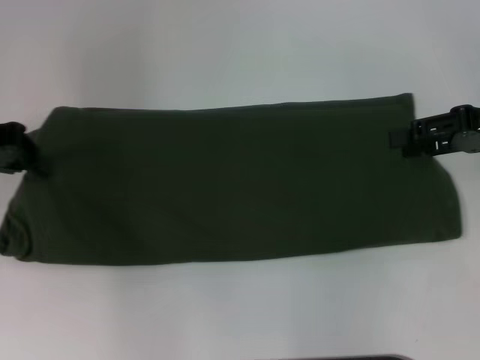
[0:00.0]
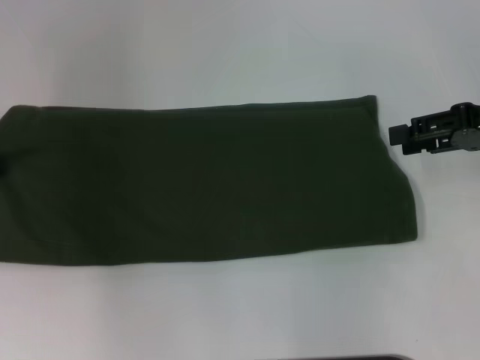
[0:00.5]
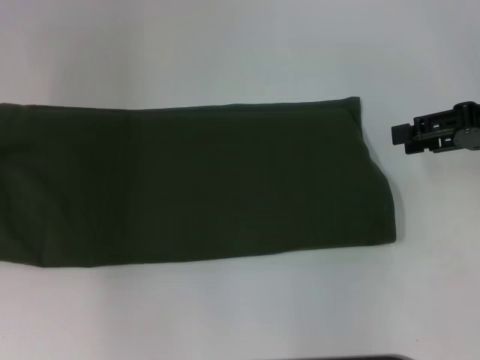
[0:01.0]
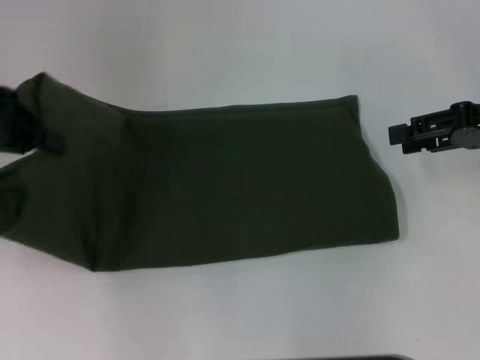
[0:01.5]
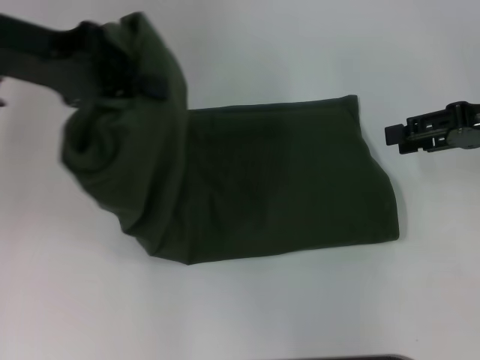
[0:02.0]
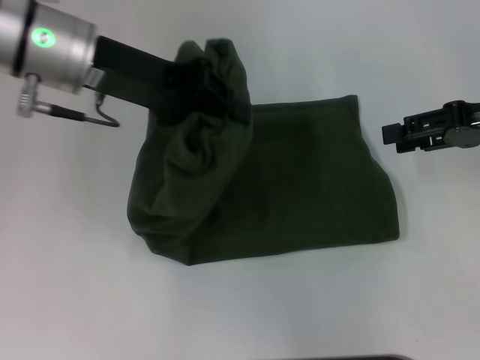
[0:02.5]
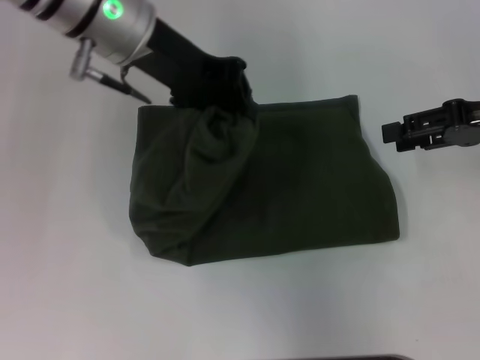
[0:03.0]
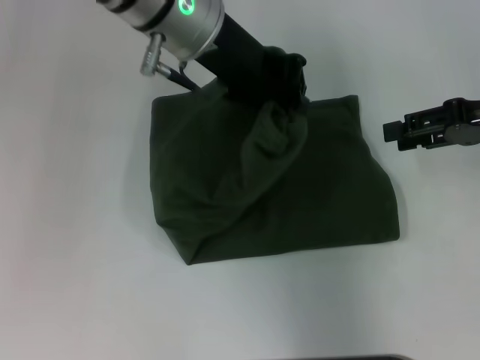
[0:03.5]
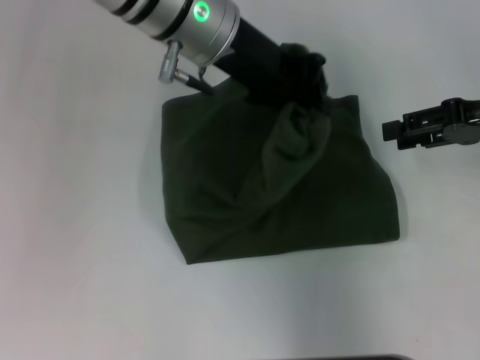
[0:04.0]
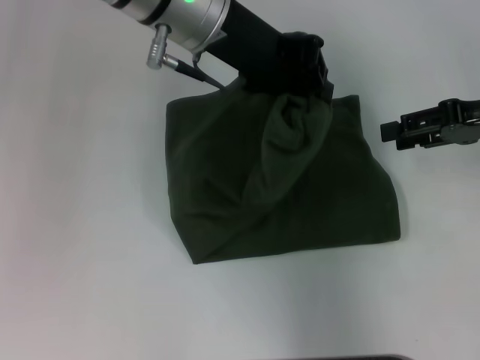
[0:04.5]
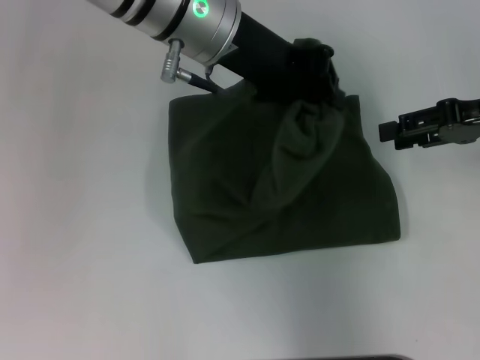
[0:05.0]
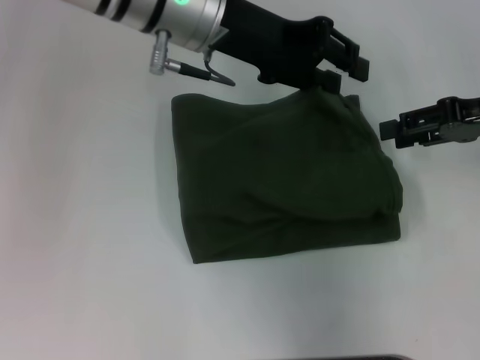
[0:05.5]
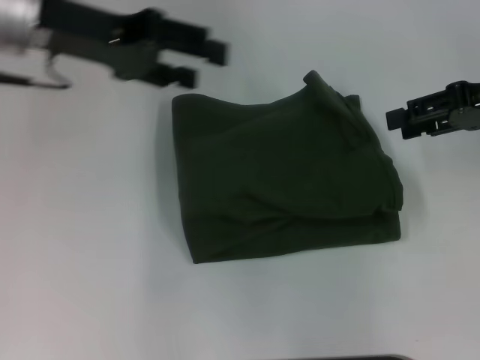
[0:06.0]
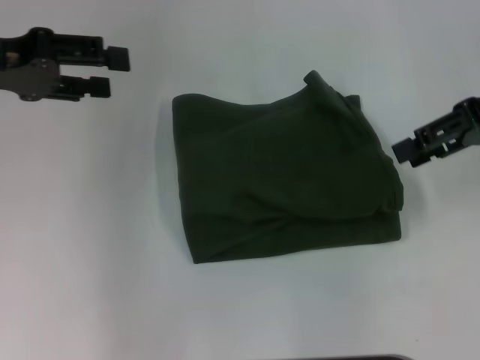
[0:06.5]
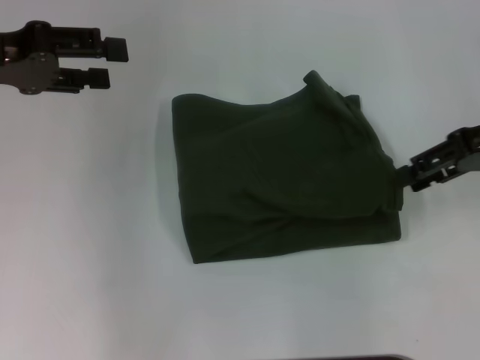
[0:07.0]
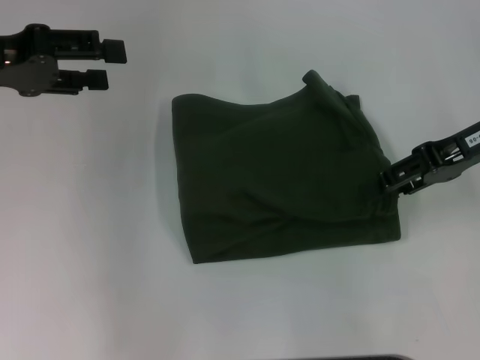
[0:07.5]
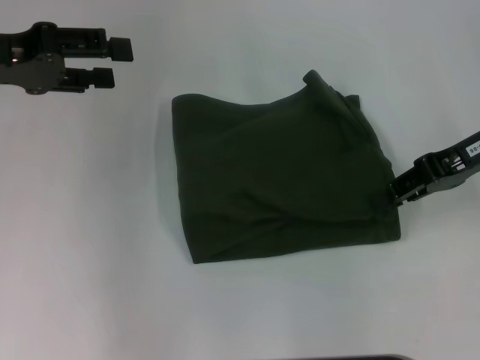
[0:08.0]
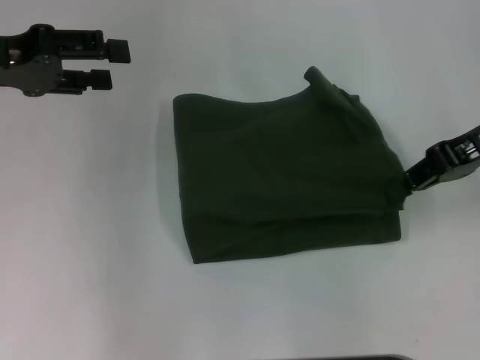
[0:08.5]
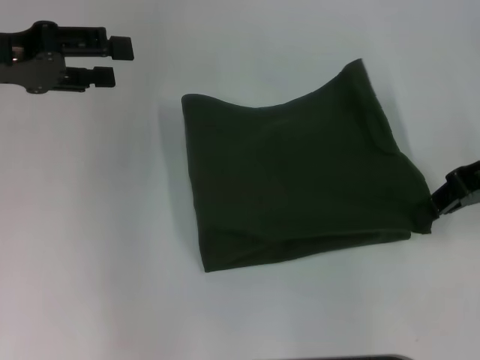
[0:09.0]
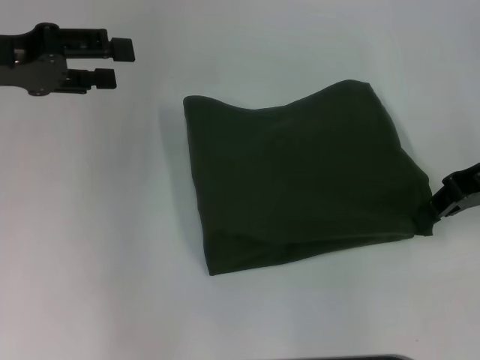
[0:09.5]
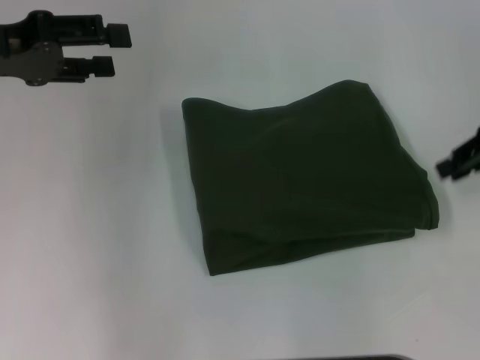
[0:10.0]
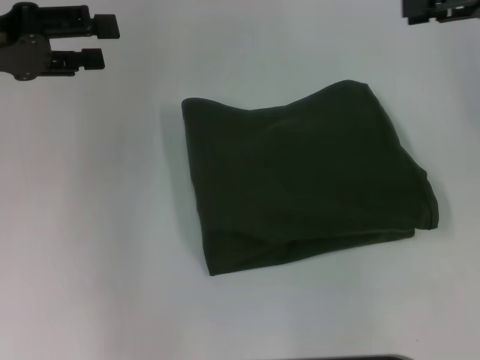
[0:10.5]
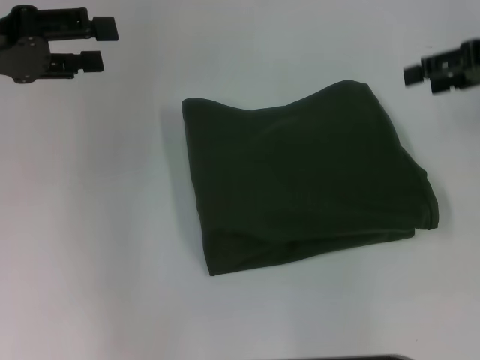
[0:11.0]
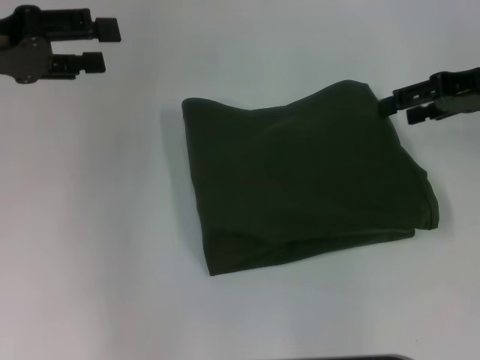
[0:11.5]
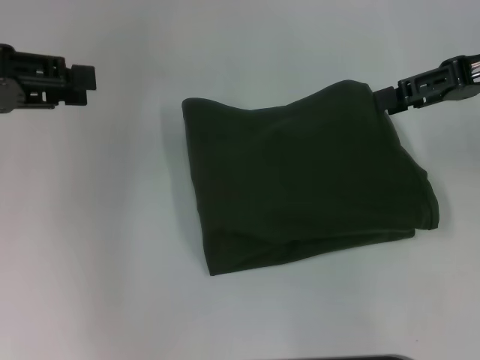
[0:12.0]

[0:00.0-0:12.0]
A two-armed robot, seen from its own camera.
Step, 0:00.0 to 0:05.5: Fold the clothes with your left hand.
0:00.0 to 0:02.0: The left gripper heads to the right and upward, covering some 10 cm.
0:02.0 to 0:04.0: The left gripper shifts some 20 cm to the right.
0:04.0 to 0:06.0: The left gripper travels to the left by some 15 cm, and opens its fingers.
0:06.0 to 0:08.0: The left gripper travels to the left by about 10 cm.
0:08.0 to 0:10.0: The right gripper is displaced to the right by roughly 5 cm.
0:10.0 to 0:12.0: The right gripper opens its fingers.

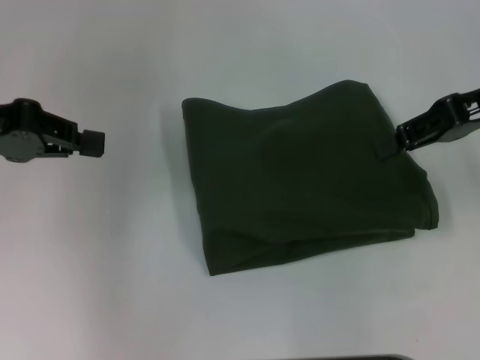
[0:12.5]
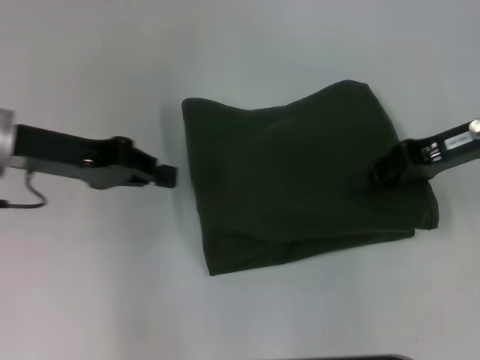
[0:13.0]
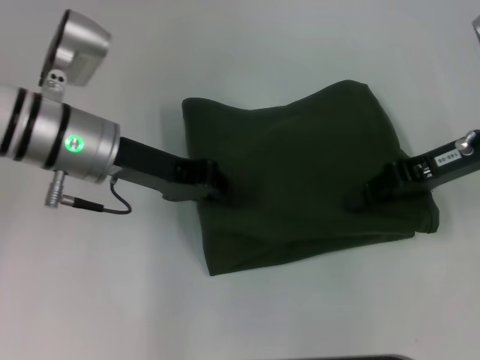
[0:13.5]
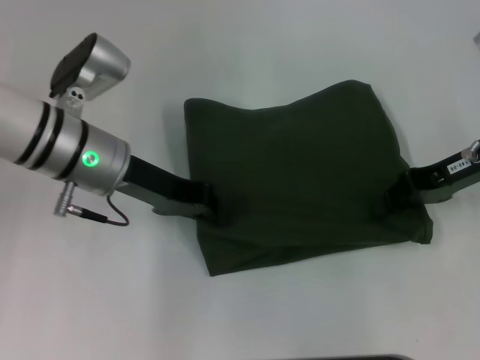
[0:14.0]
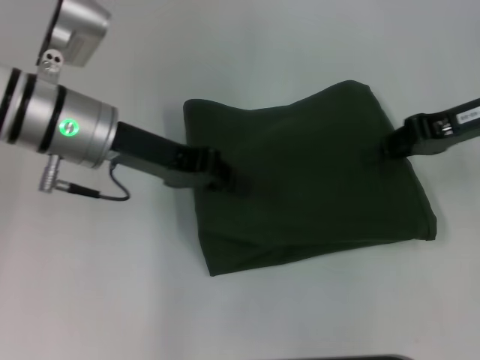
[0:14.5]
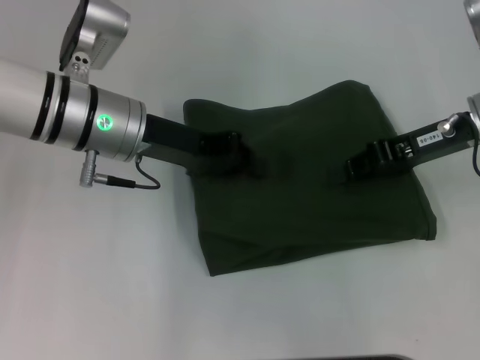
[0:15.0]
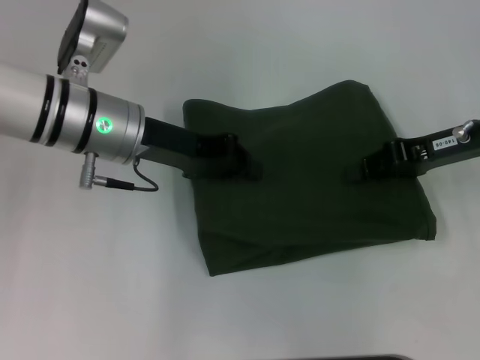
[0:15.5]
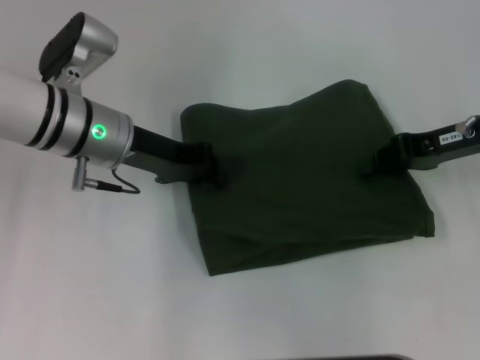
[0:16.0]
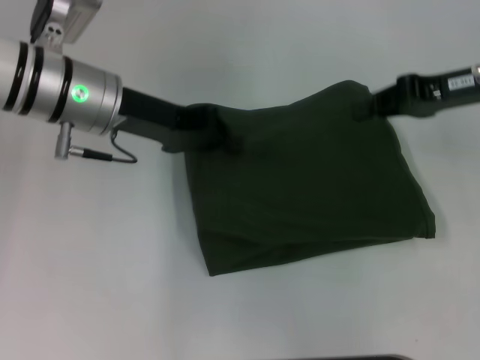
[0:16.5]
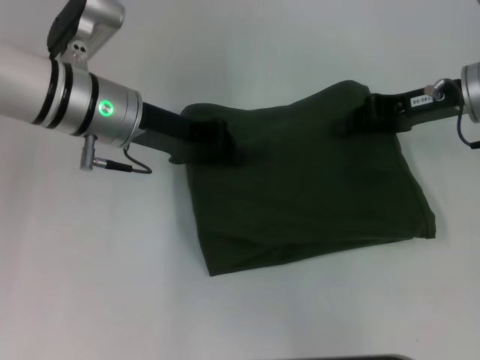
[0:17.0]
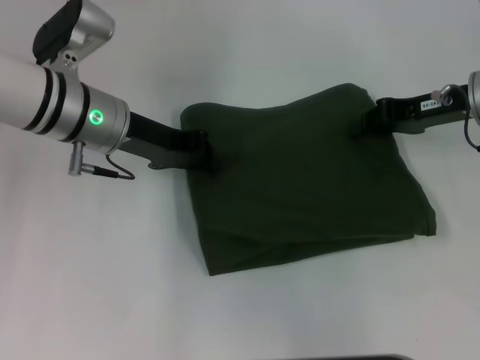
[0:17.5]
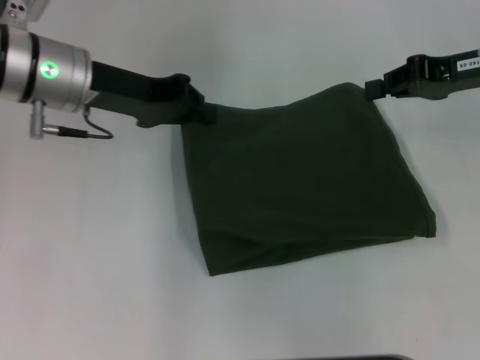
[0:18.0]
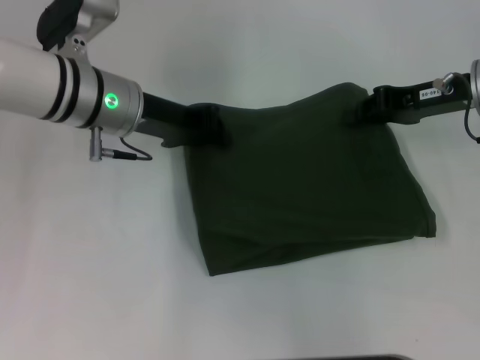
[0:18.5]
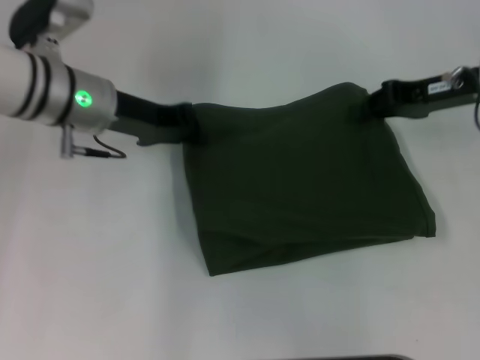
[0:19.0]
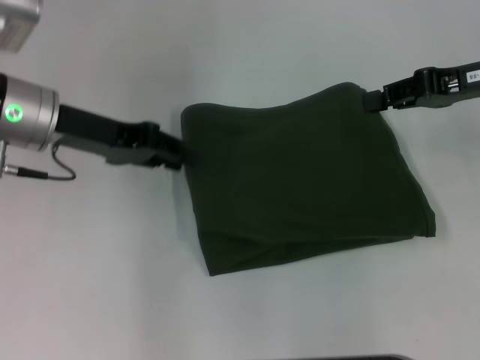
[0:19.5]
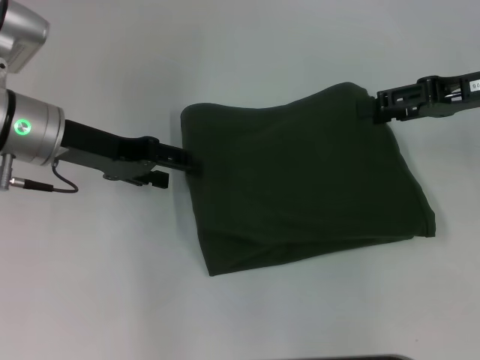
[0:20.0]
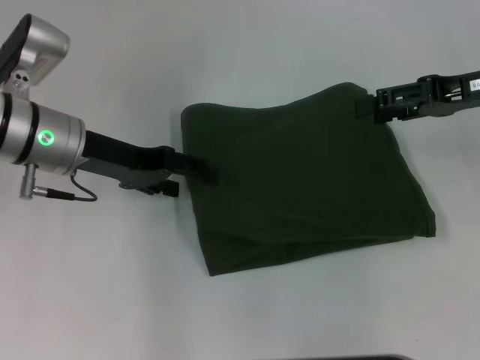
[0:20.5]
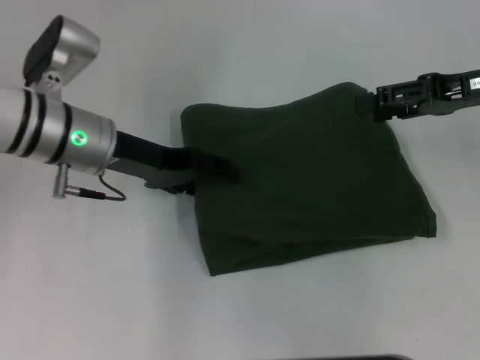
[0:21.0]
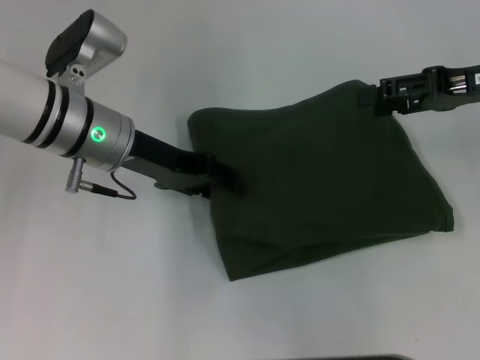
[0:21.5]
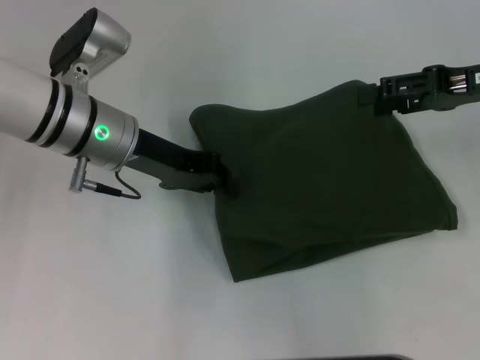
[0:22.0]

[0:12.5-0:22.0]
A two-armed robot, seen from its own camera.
0:12.5 to 0:14.5: The left gripper heads to the right, covering approximately 15 cm. Meanwhile the right gripper closes.
0:14.5 to 0:18.0: The grippers stay close to where they were, moving slightly.
0:18.0 to 0:20.0: The left gripper ends up approximately 5 cm from where it was, and opens its fingers, while the right gripper opens.
0:20.0 to 0:22.0: The left gripper heads to the right, covering roughly 5 cm; the right gripper opens up.

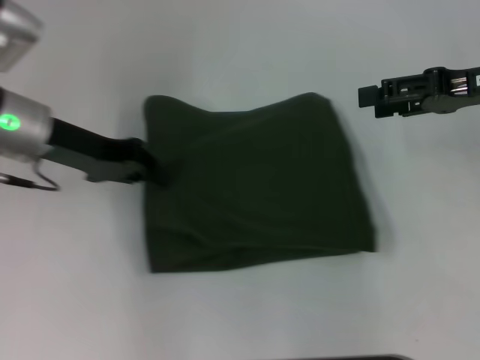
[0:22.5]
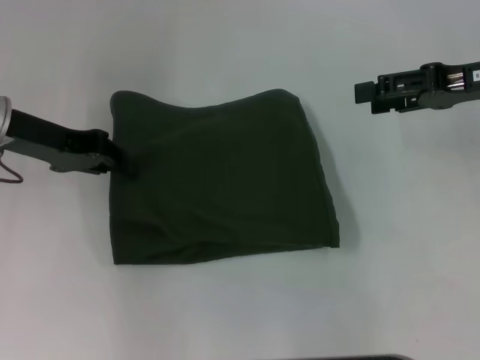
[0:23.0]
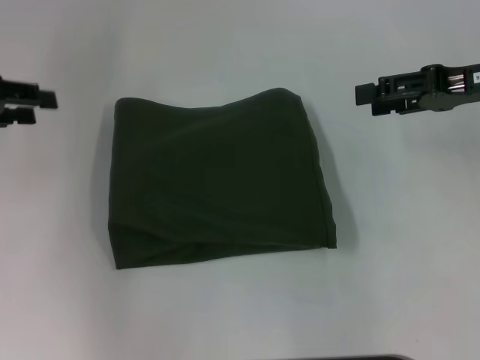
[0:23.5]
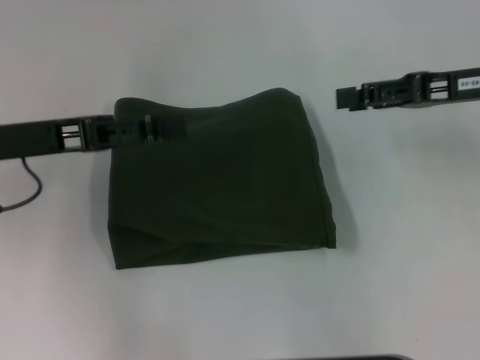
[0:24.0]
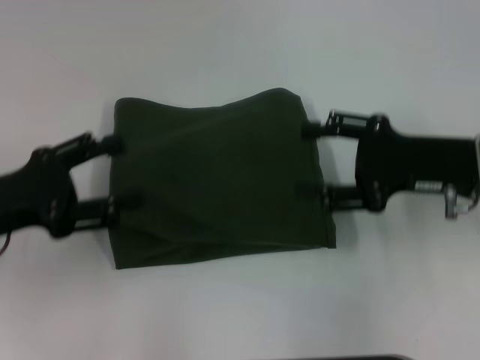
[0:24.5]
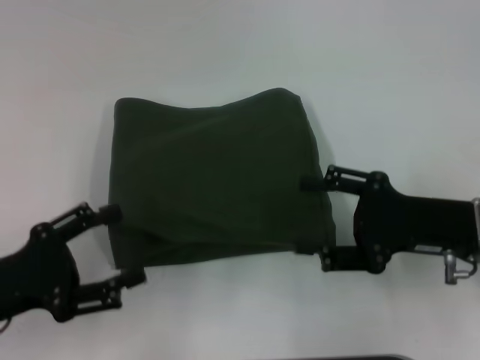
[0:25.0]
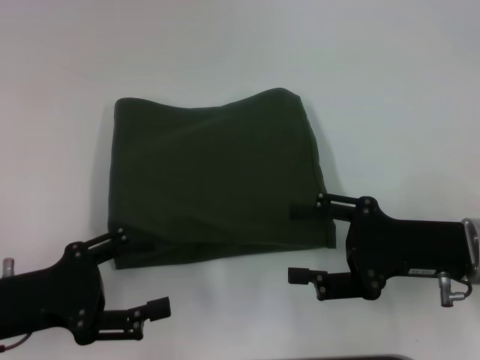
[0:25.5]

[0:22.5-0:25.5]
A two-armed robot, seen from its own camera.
0:22.5 to 0:24.0: The left gripper shifts some 5 cm backward, reaches roughly 10 cm to the left, then returns, and opens.
0:24.0 to 0:25.5: Both grippers move backward and downward, some 15 cm.

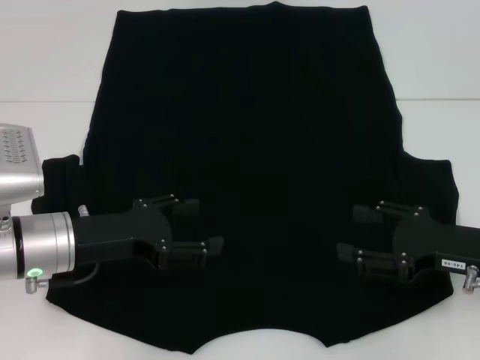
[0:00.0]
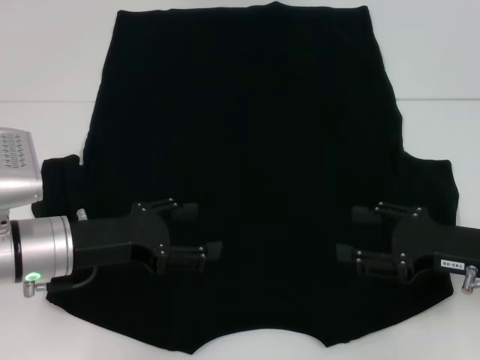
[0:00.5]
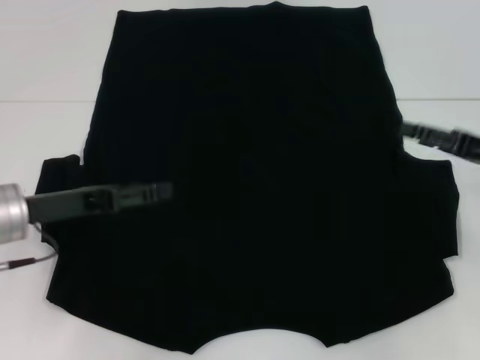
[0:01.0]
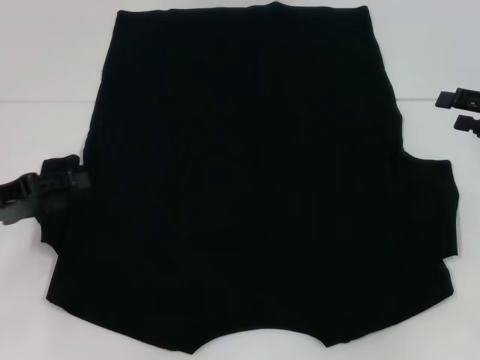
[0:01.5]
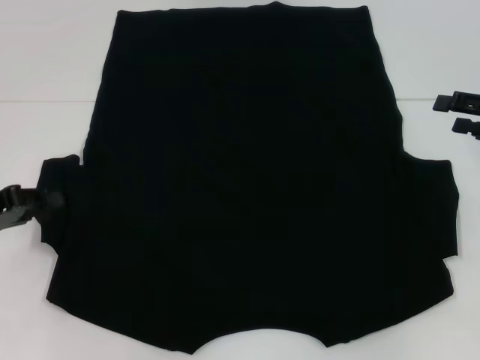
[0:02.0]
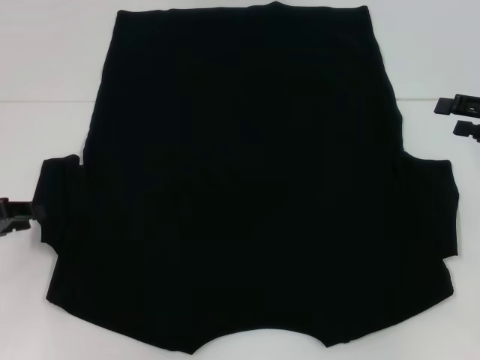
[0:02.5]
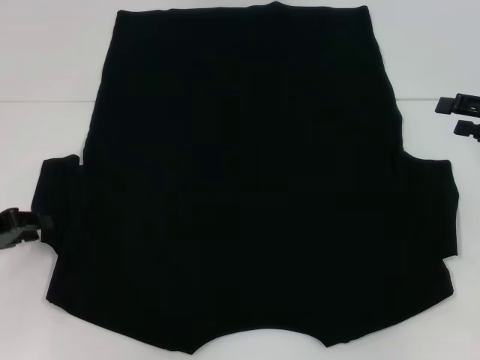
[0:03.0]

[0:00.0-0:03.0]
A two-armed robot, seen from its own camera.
0:00.0 to 0:01.5: The left gripper goes approximately 10 cm to the left. Meanwhile the right gripper heads forward, to the right and upward, covering some 15 cm.
0:01.5 to 0:03.0: The left gripper closes.
